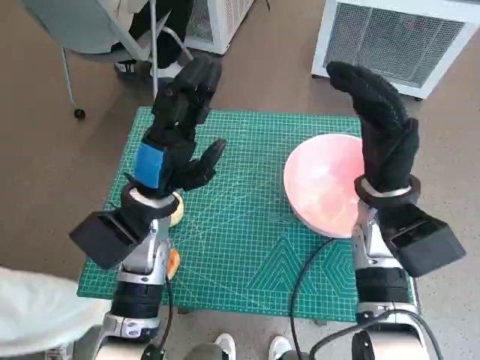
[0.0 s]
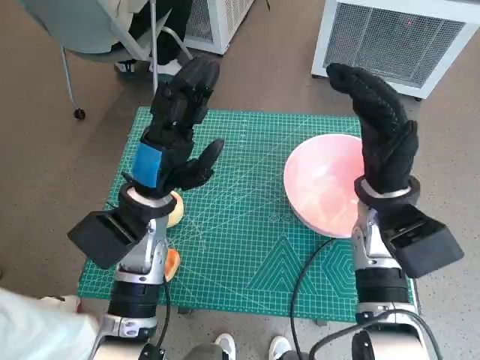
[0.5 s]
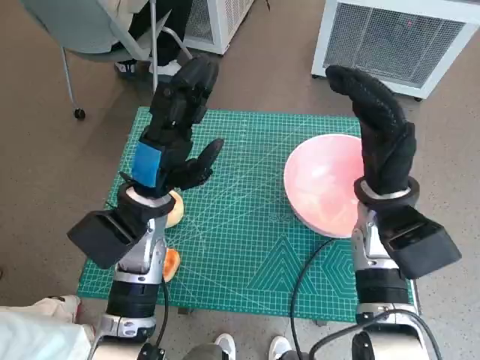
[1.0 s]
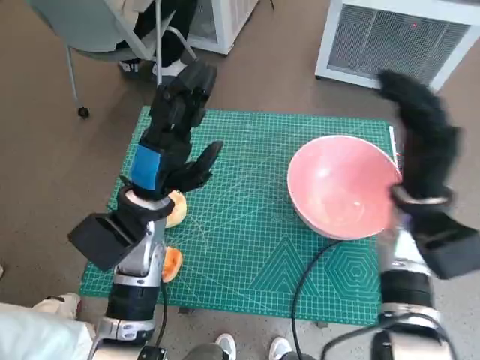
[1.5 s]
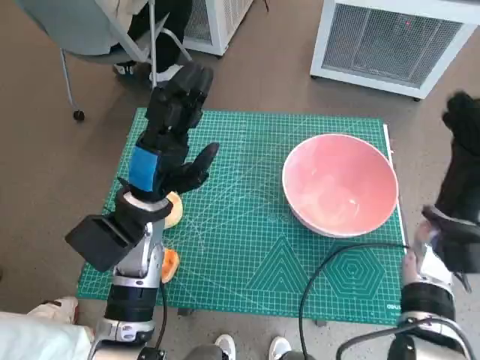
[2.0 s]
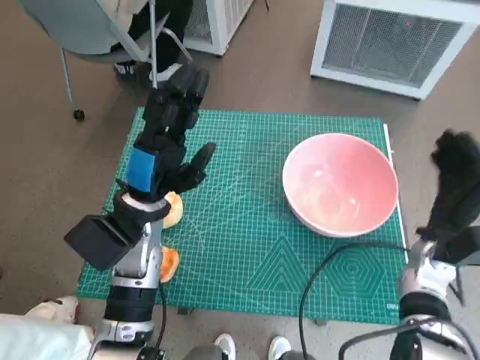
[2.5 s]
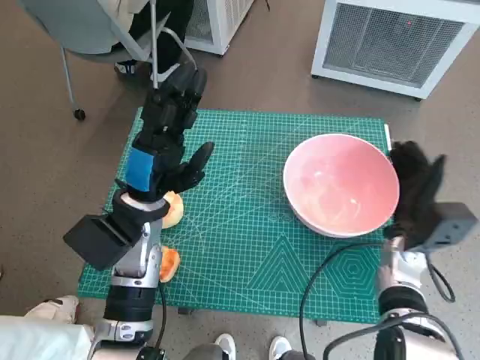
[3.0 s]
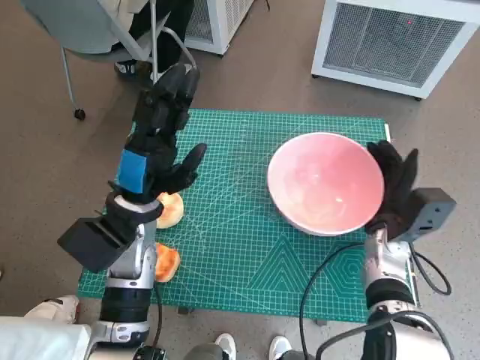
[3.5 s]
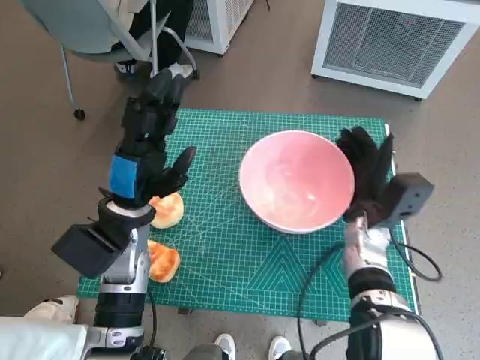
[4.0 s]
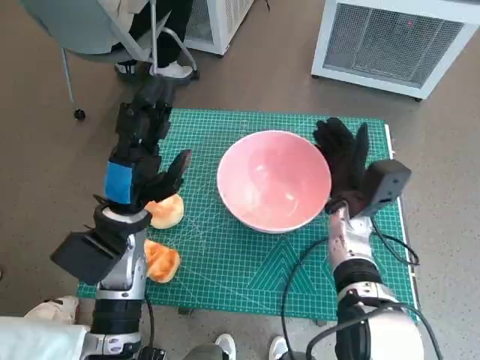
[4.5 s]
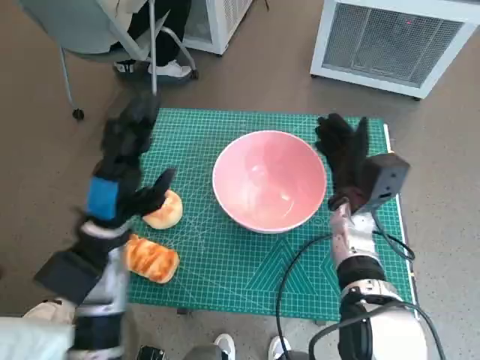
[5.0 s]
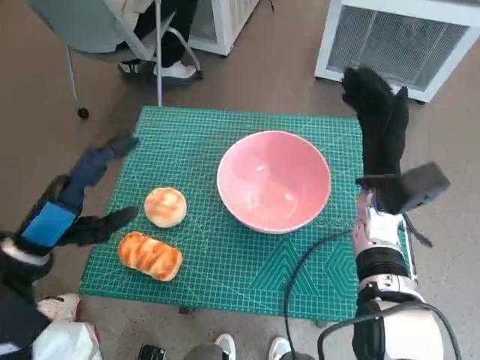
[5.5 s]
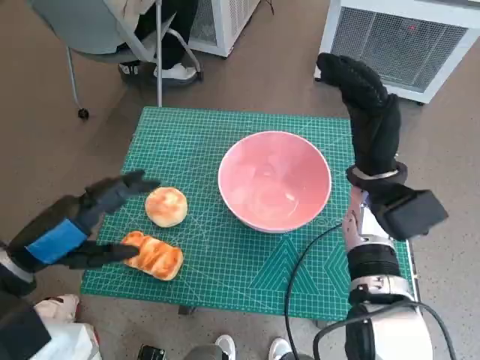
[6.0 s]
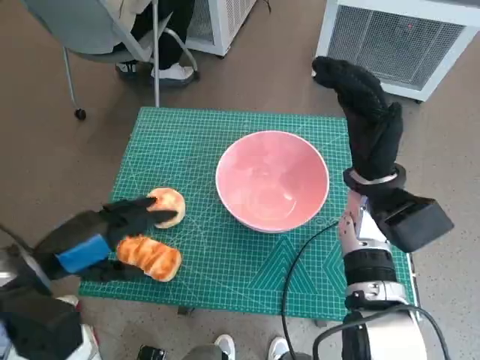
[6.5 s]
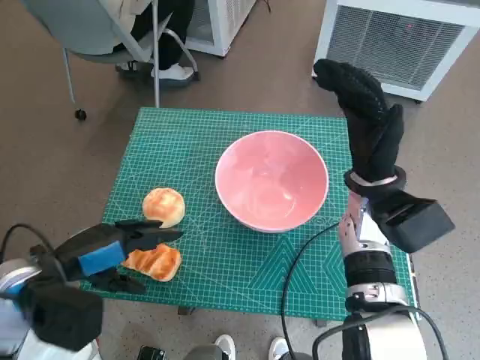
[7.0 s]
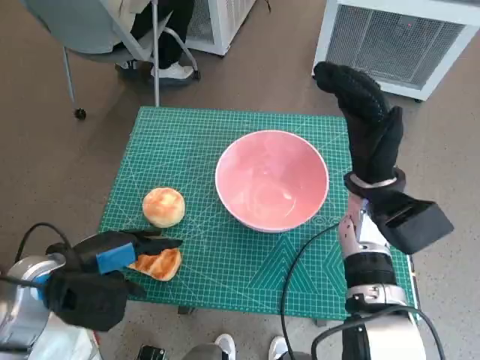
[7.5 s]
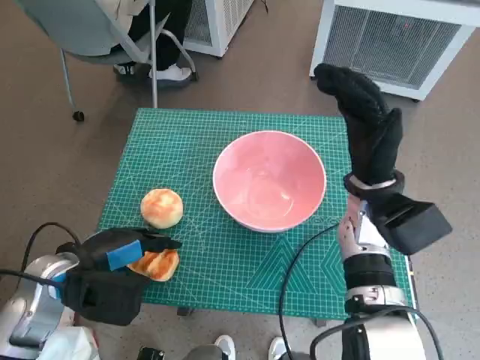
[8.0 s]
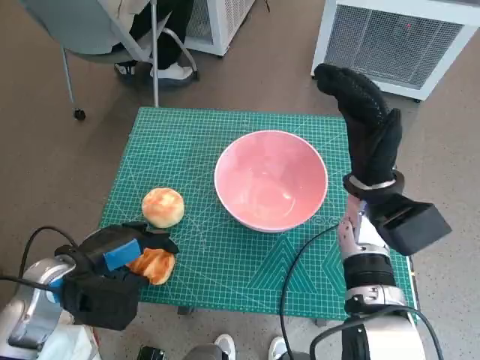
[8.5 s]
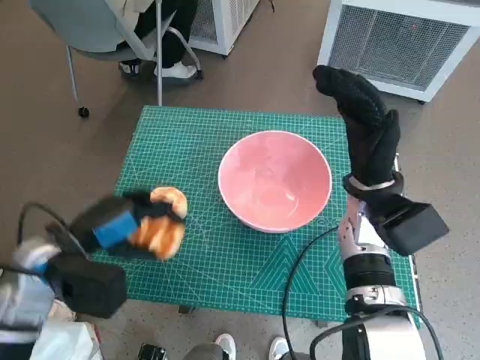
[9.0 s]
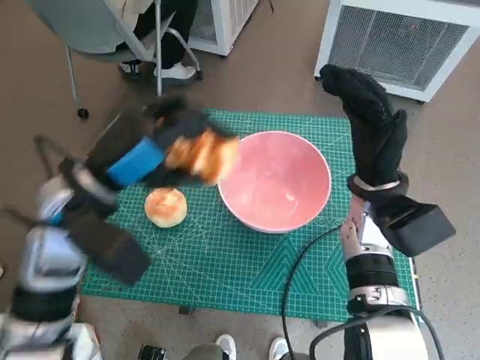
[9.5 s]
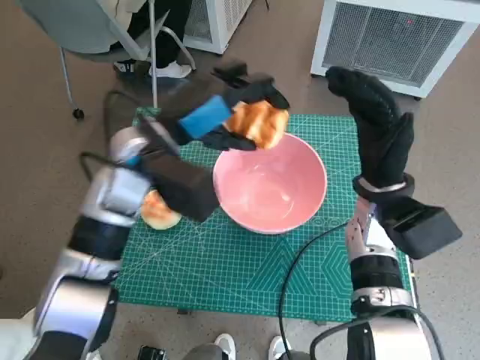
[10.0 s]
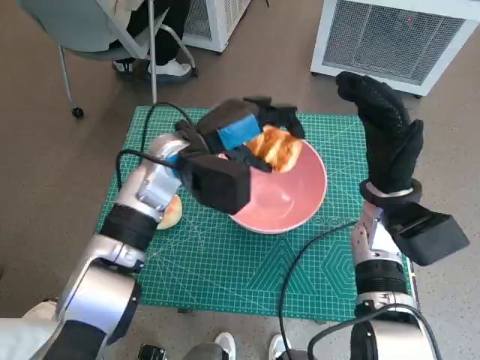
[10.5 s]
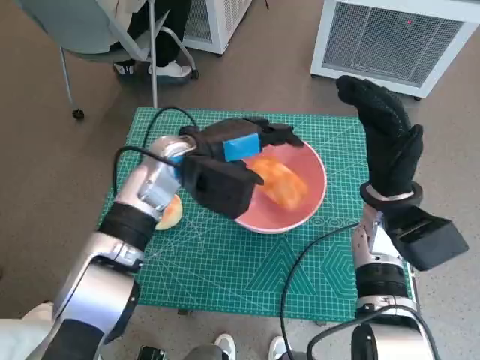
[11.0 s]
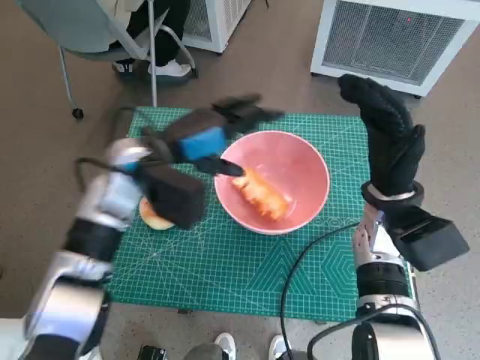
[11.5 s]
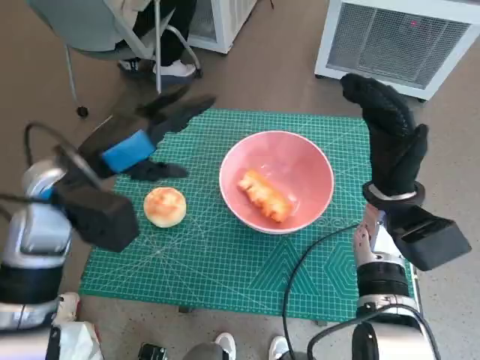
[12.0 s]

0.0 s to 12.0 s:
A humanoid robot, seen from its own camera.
Task of the whole recording: Push the bowl to the center of the table and put the bread into the bowl.
Step, 0.0 to 5.5 s: Move the pink bowl to the center of table with right hand.
Step, 6.0 to 8.5 s: Grasp the long bread with left hand.
Step, 9.0 to 11.5 s: Place the long bread in pink bowl with left hand.
2.0 to 4.0 s: The right hand goes some 10 cm to the left and downward.
4.0 to 6.0 s: The left hand moves to the left, backward and upward, roughly 15 cm. The right hand travels upward by roughly 10 cm.
6.0 to 8.0 s: The left hand goes roughly 5 cm downward.
8.0 to 10.0 s: The left hand is displaced to the right, upward and forward by some 20 cm.
10.0 to 12.0 s: The left hand is displaced to the left by some 5 cm.

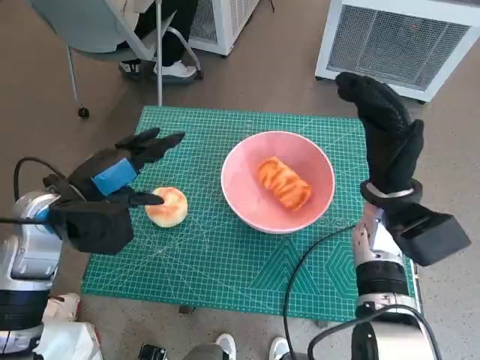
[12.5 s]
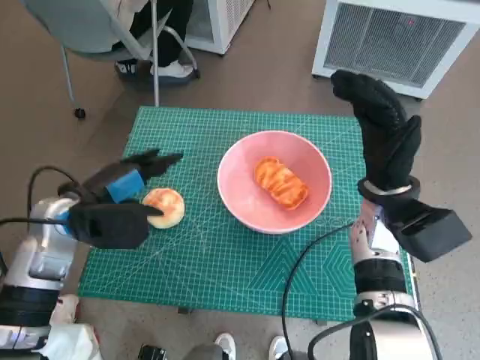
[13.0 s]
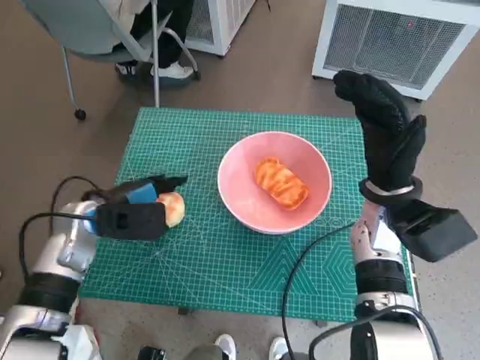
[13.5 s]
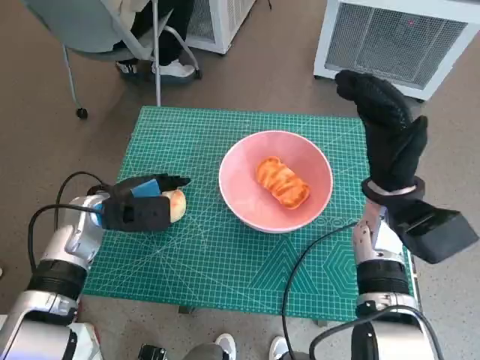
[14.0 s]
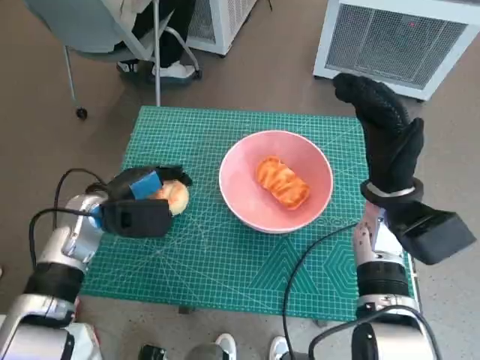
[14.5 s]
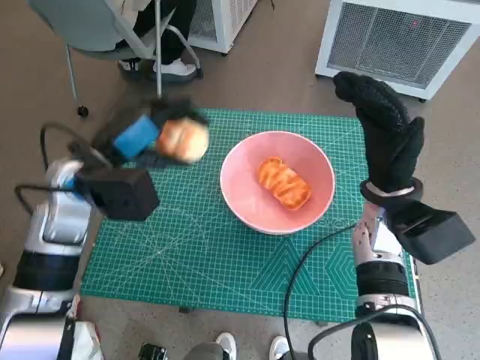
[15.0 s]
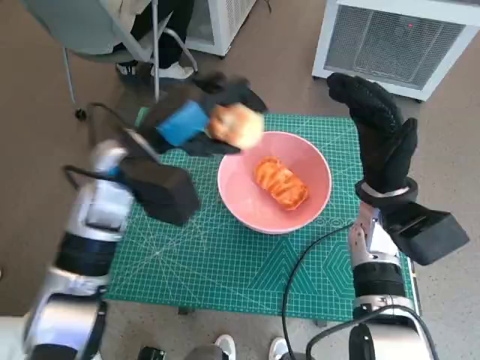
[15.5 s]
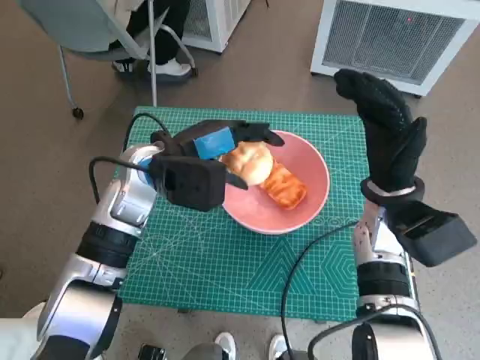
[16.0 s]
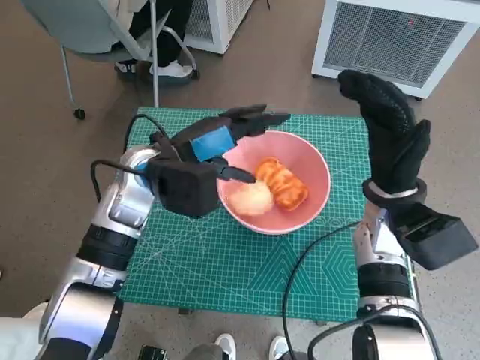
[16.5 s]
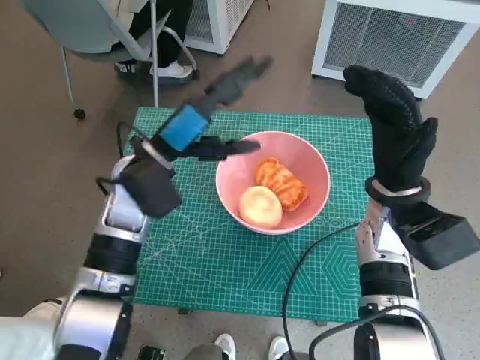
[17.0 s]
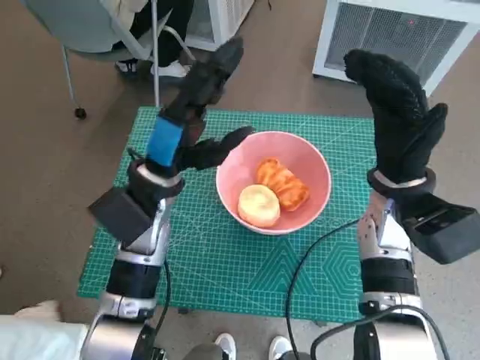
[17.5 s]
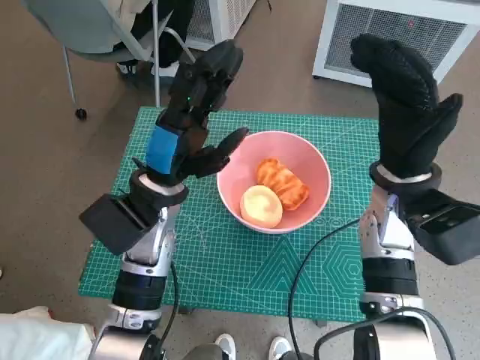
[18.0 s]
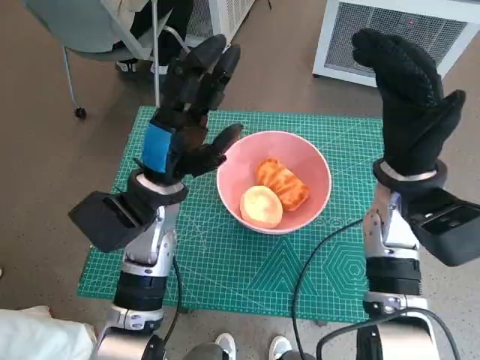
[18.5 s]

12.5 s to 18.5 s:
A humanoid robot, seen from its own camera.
Task of the whole recording: Push the bowl to the center of the table and put the bread into the bowl.
Step, 12.5 to 14.0 s: Grasp the round bread with left hand.
Step, 14.5 to 17.0 s: Place the round bread in pink bowl with left hand.
12.5 to 14.5 s: The left hand heads downward, covering roughly 5 cm.
14.5 to 16.5 s: The left hand heads to the right and upward, covering about 15 cm.

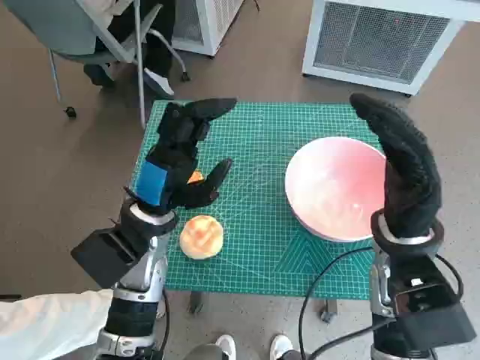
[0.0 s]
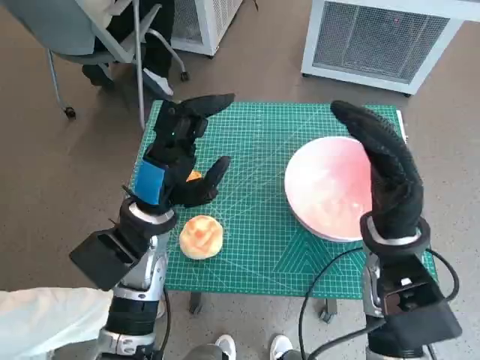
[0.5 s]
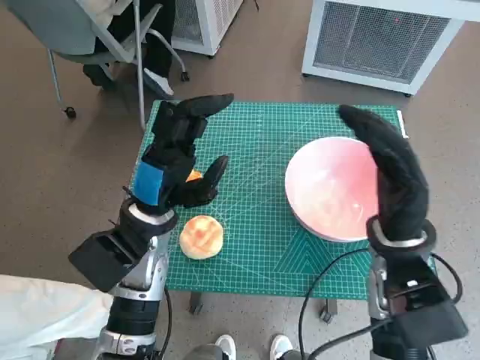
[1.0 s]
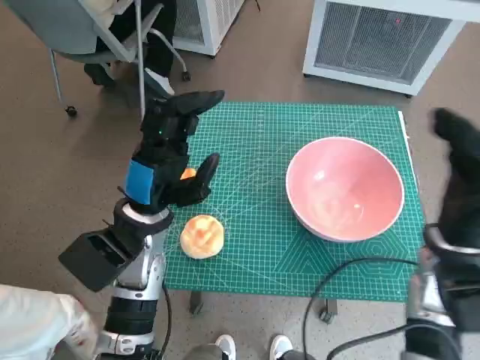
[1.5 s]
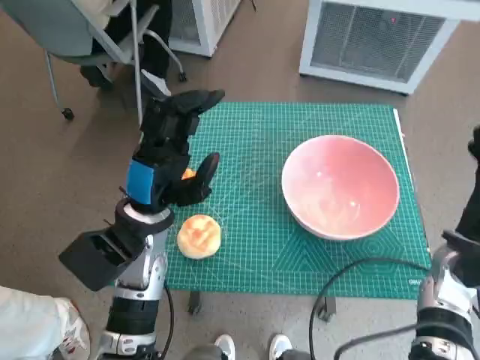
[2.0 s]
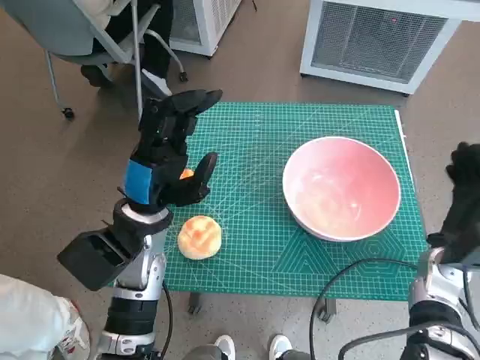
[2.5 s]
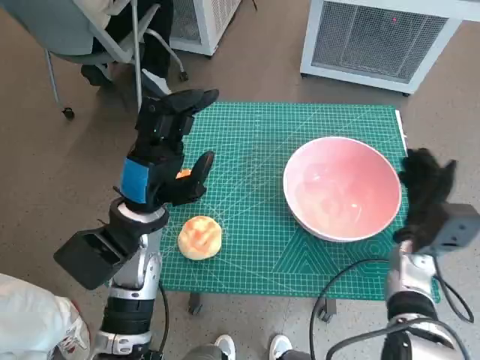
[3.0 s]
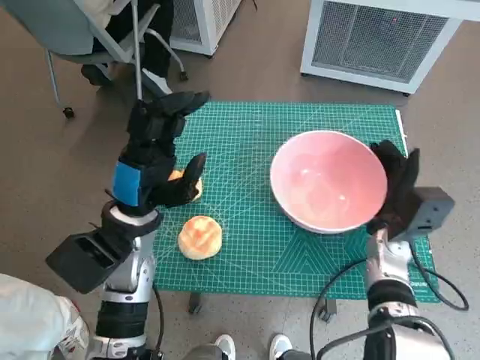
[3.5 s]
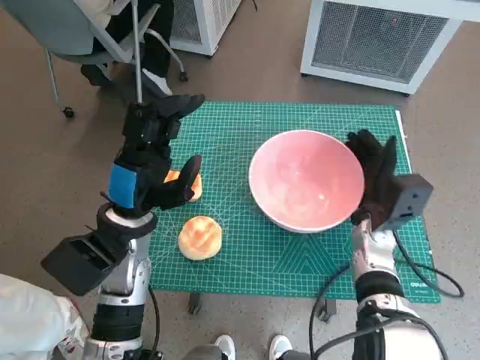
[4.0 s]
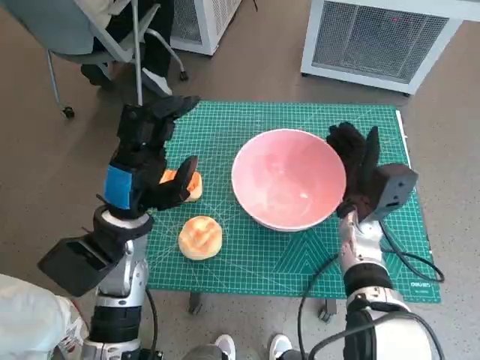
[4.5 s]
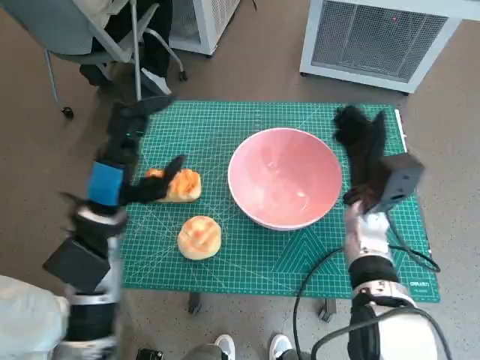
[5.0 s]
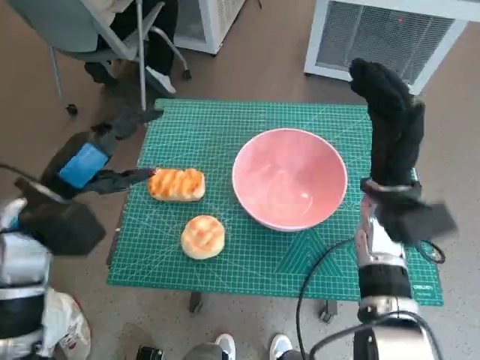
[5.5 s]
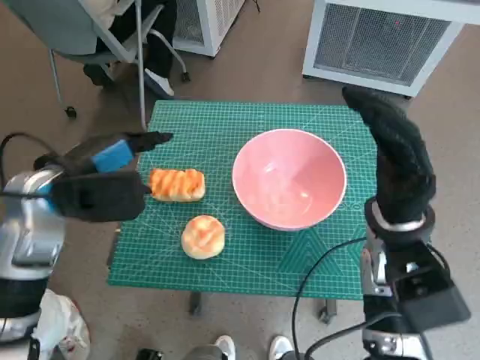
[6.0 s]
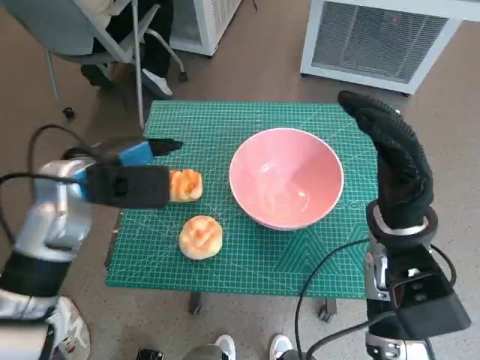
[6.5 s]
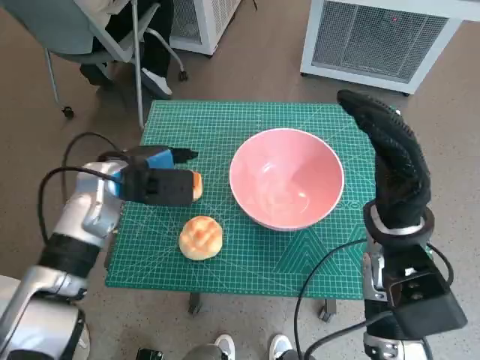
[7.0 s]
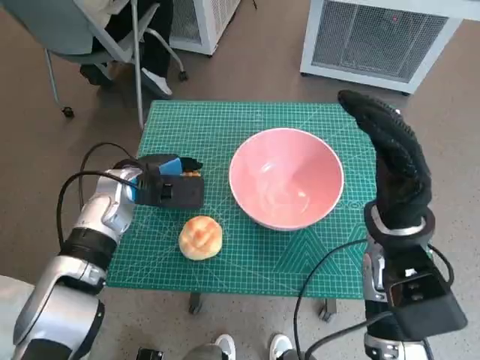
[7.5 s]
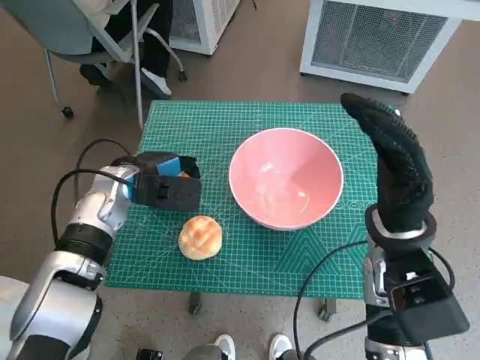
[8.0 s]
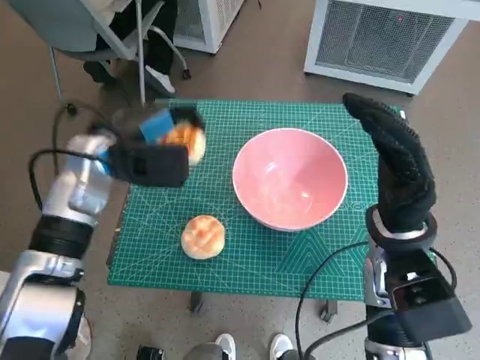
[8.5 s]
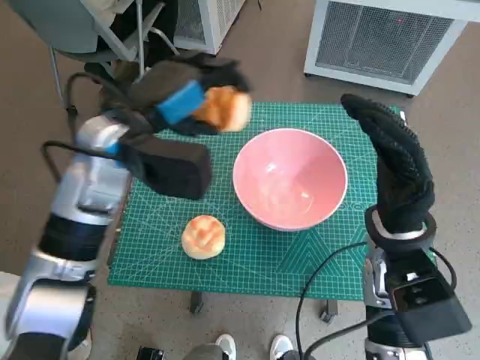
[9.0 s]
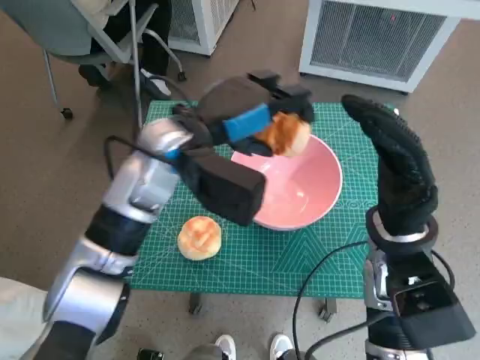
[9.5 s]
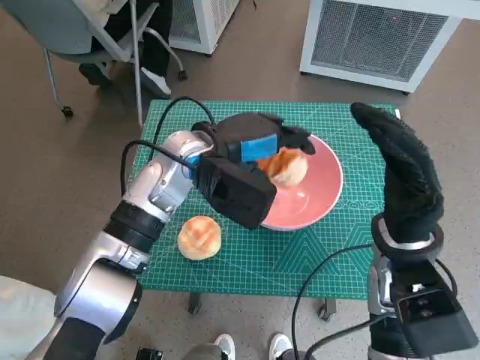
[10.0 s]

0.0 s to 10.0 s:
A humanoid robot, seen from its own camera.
Task of the whole recording: Push the bowl to the center of the table and put the bread into the bowl.
Step, 0.0 to 5.0 s: Move the pink bowl to the center of table with right hand.
Step, 5.5 to 7.5 s: Grasp the long bread with left hand.
2.0 to 4.0 s: The right hand travels to the left and forward by about 10 cm.
4.0 to 6.0 s: The right hand moves upward, approximately 10 cm. The left hand heads to the left and upward, covering about 10 cm.
6.0 to 8.0 s: The left hand goes roughly 10 cm downward and forward.
8.0 to 10.0 s: The left hand travels to the right and upward by approximately 15 cm.
